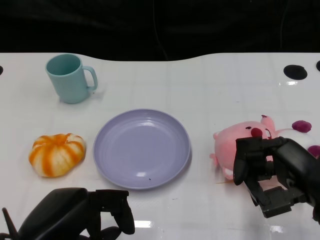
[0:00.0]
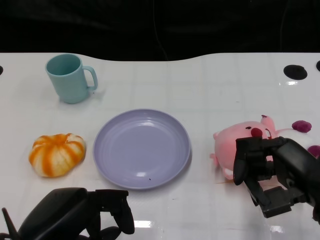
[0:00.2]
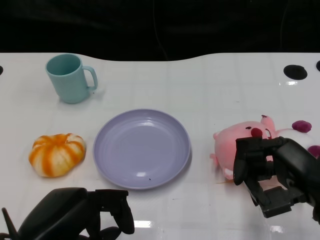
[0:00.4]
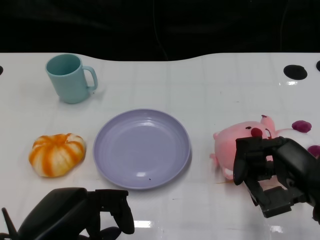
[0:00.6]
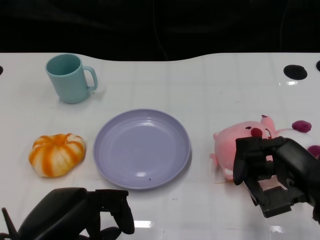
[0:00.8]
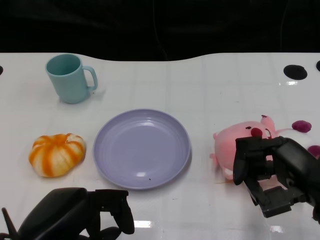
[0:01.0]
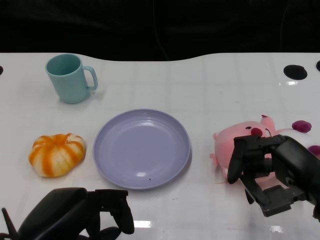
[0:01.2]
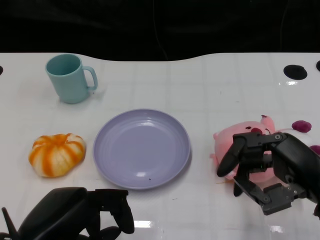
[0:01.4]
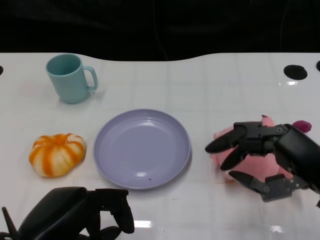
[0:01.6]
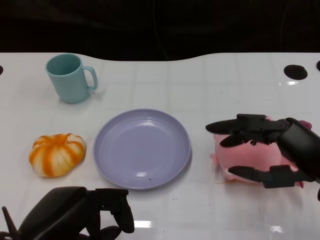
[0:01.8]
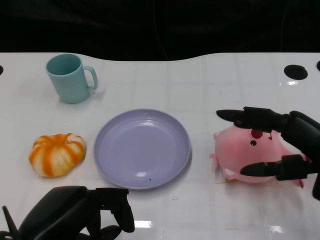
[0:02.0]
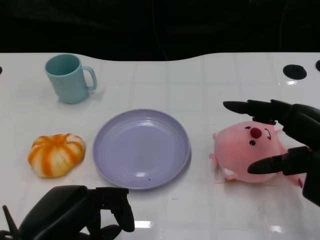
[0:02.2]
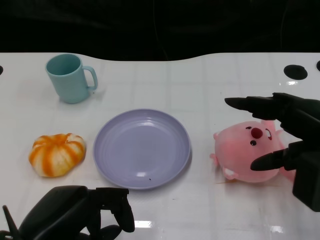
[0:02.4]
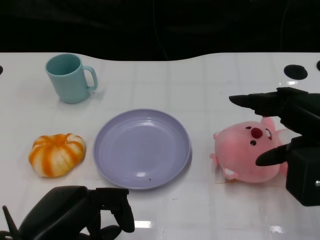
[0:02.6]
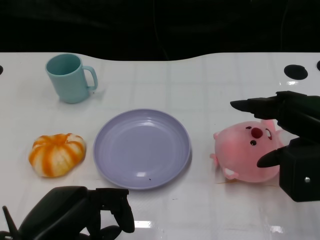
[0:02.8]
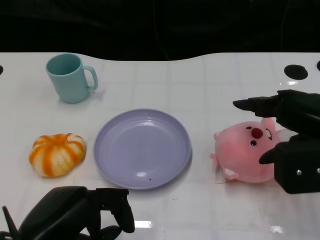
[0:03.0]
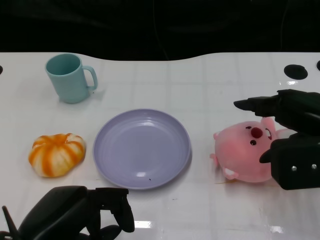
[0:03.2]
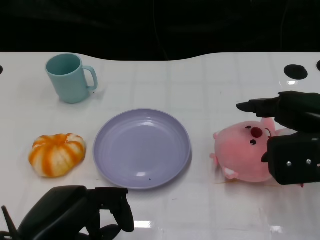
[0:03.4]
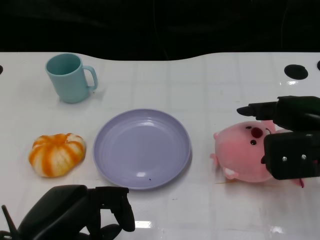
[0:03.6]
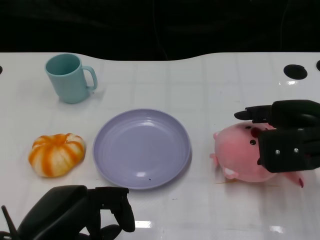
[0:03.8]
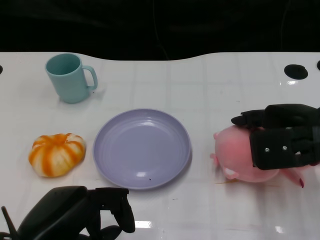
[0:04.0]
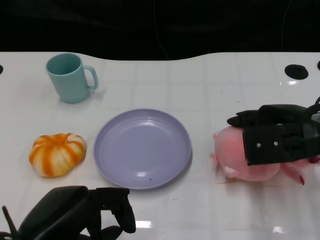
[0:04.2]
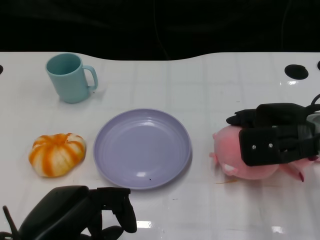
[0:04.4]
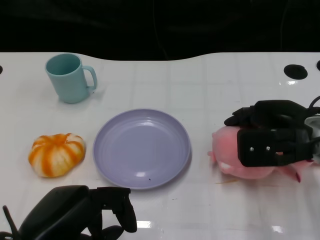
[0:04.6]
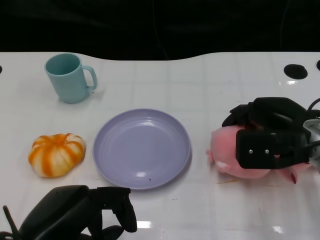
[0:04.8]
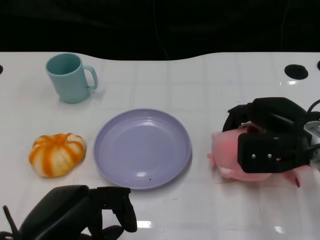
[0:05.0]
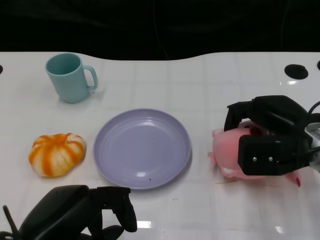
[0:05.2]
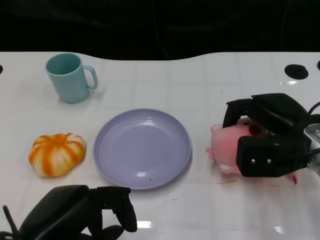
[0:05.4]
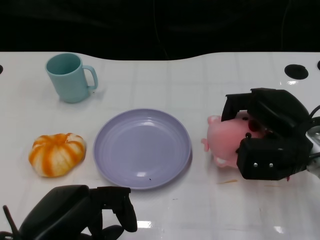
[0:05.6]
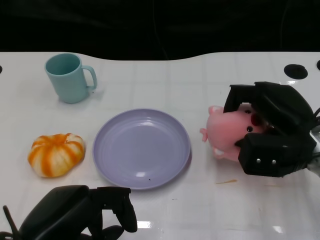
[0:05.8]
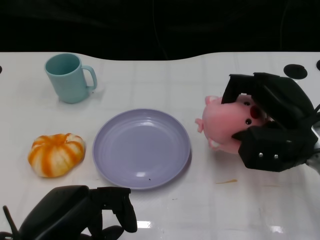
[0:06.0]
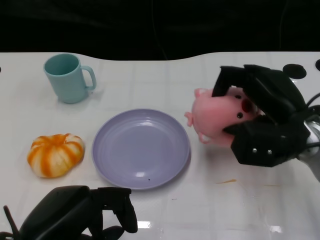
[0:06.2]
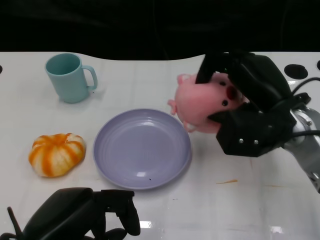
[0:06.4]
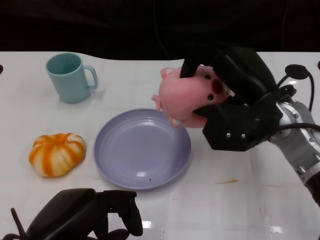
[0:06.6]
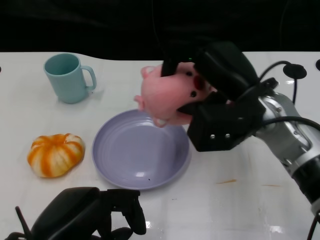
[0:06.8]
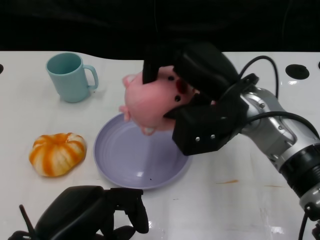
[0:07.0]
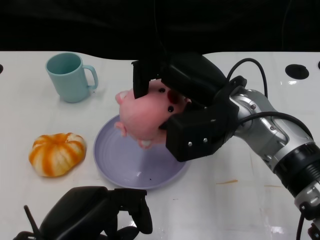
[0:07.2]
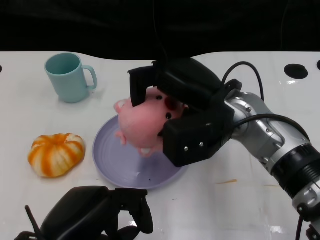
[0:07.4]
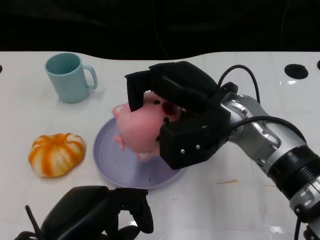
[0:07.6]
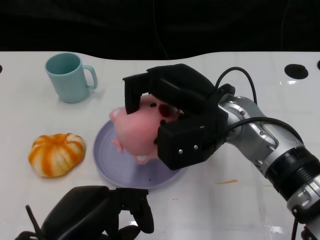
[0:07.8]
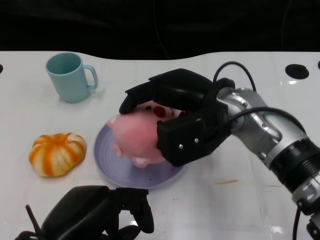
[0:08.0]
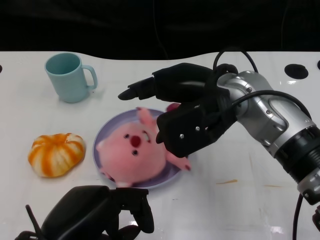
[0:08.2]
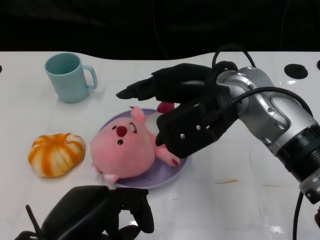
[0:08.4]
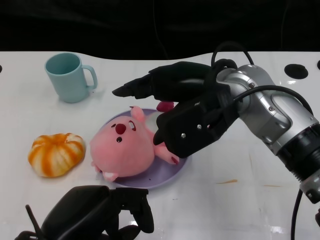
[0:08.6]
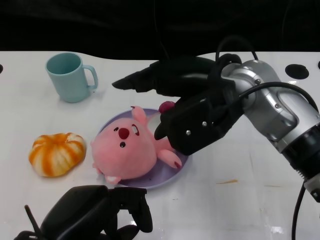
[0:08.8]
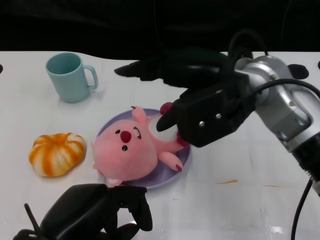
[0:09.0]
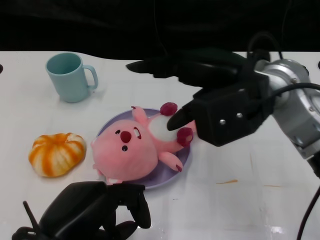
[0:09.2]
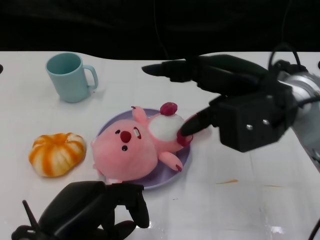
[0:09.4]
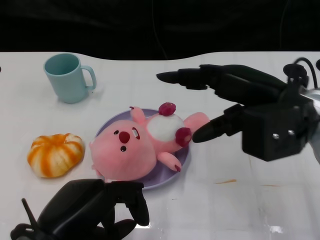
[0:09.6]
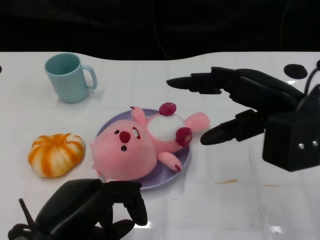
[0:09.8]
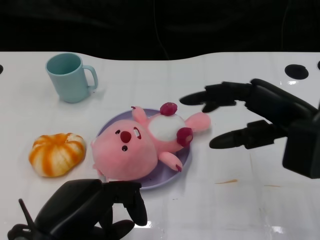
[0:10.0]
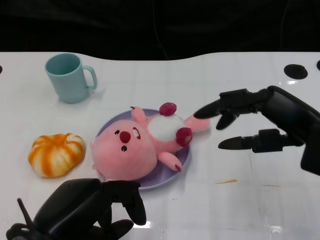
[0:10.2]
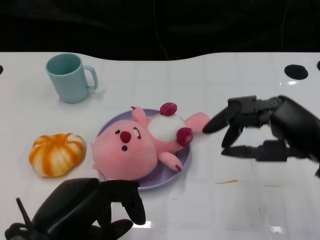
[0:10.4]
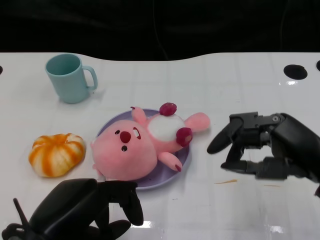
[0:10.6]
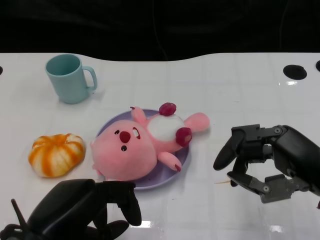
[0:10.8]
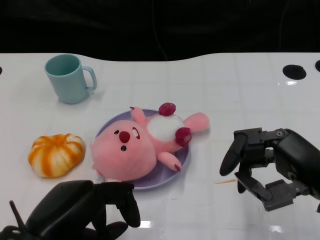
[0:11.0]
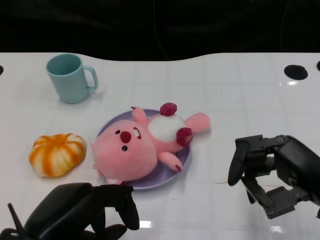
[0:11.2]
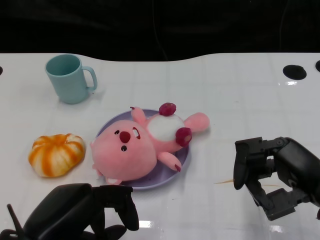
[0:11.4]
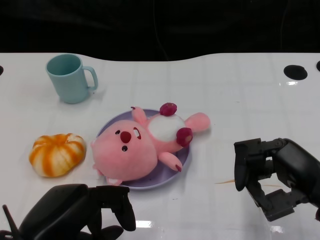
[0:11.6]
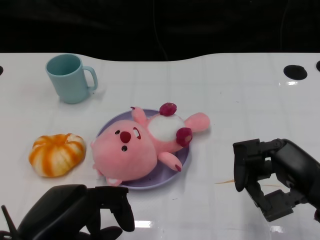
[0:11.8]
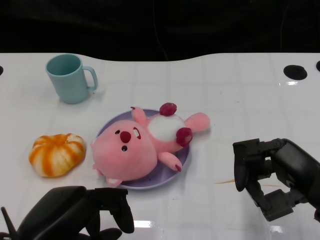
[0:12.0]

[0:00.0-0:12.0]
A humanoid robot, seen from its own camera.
Task of the whole recording: Pick up the doll on the other side of the plate and place it into the plate.
Step, 0:01.2 to 0:06.6: Grasp the pink doll with the right gripper.
Step, 0:06.8 to 0:09.2: Place the pink doll into the plate with the right gripper.
0:01.6 to 0:03.0: The right hand shifts by some 5 cm.
0:03.0 to 0:04.4: The right hand shifts approximately 5 cm forward.
0:06.0 to 0:07.6: The right hand is displaced to the left by roughly 10 cm.
0:07.6 to 0:09.0: The right hand is displaced upward by some 5 cm.
0:09.0 to 0:10.4: The right hand heads to the right, backward and downward, covering approximately 15 cm.
0:10.4 to 0:12.0: The right hand ends up about 5 cm from where it was.

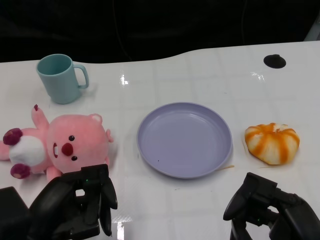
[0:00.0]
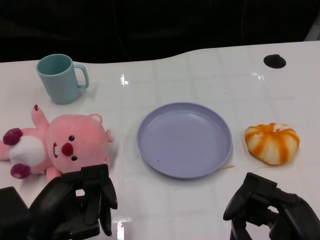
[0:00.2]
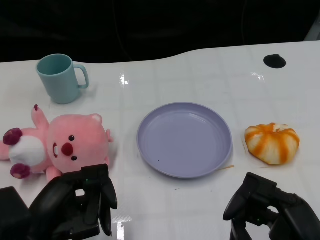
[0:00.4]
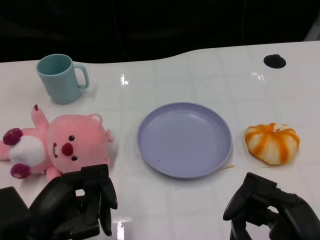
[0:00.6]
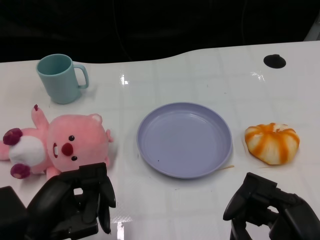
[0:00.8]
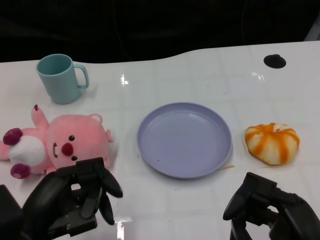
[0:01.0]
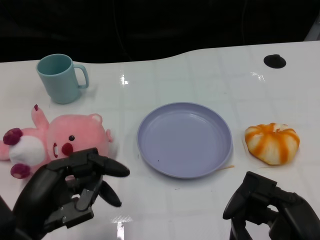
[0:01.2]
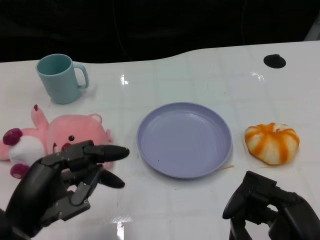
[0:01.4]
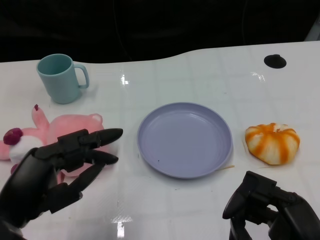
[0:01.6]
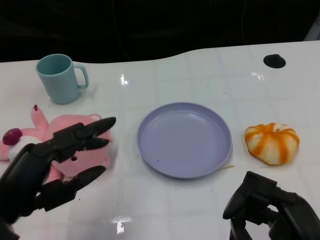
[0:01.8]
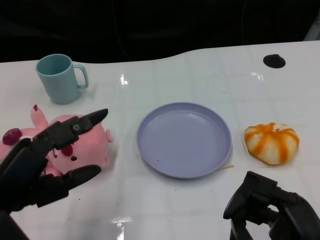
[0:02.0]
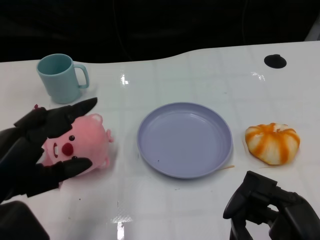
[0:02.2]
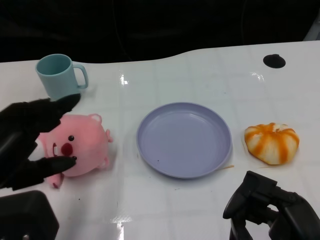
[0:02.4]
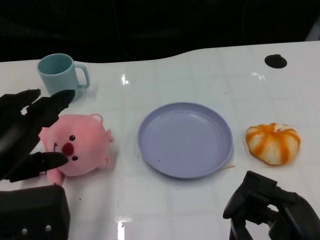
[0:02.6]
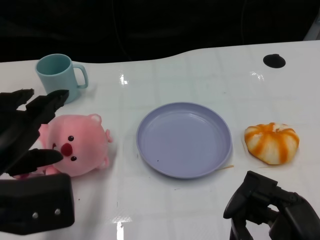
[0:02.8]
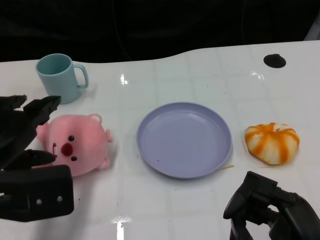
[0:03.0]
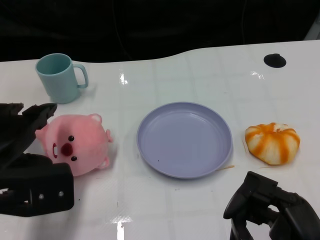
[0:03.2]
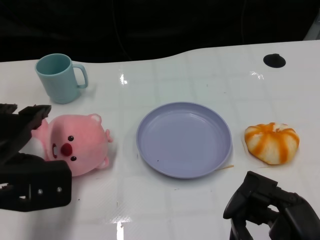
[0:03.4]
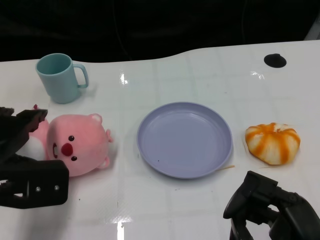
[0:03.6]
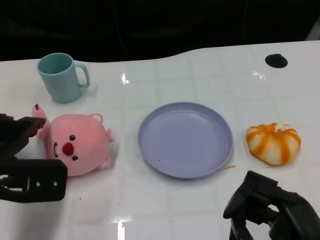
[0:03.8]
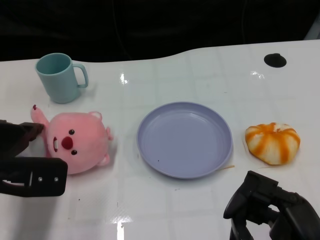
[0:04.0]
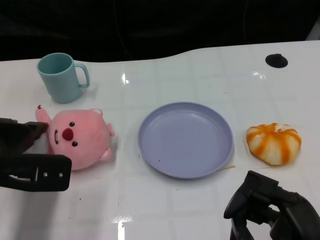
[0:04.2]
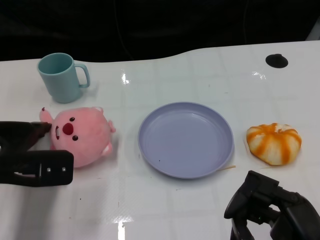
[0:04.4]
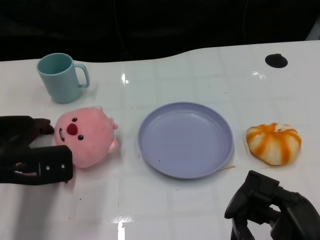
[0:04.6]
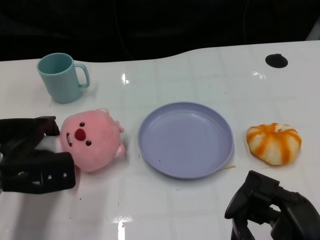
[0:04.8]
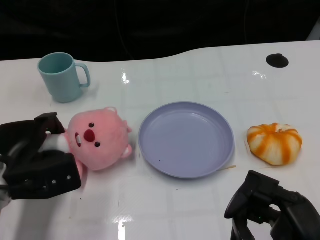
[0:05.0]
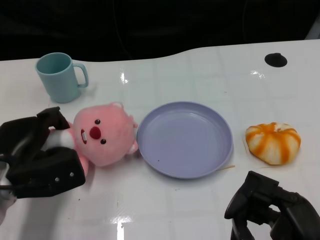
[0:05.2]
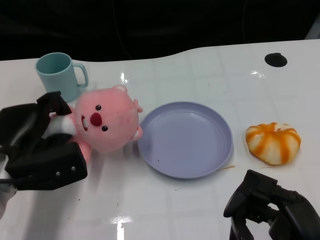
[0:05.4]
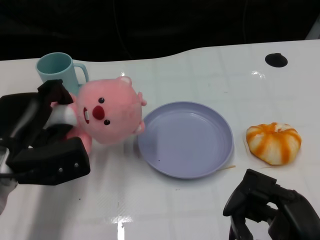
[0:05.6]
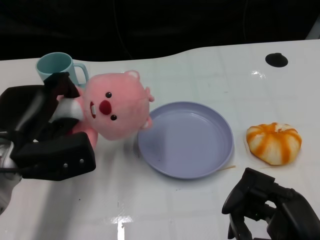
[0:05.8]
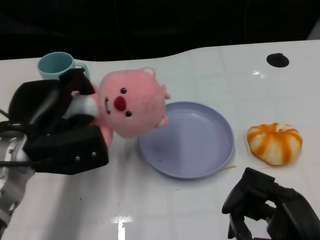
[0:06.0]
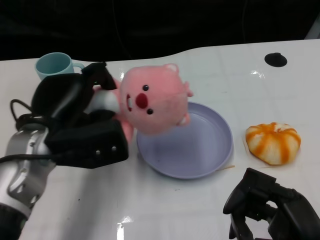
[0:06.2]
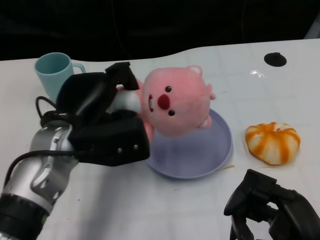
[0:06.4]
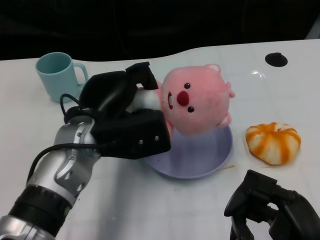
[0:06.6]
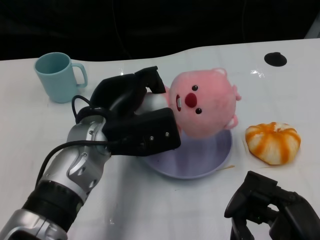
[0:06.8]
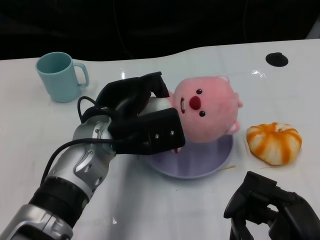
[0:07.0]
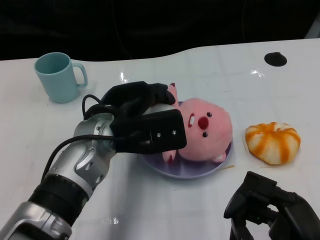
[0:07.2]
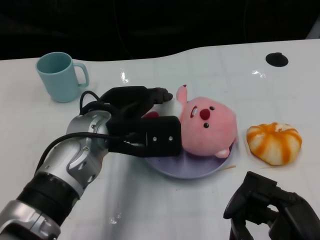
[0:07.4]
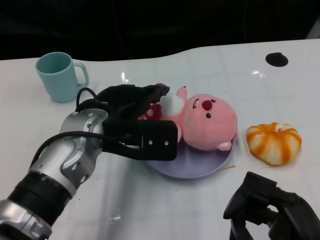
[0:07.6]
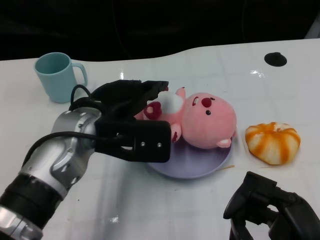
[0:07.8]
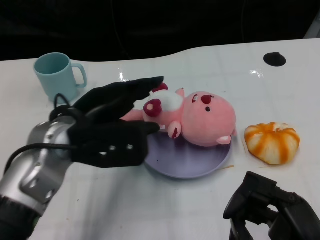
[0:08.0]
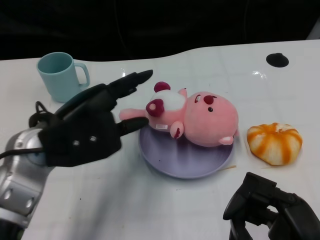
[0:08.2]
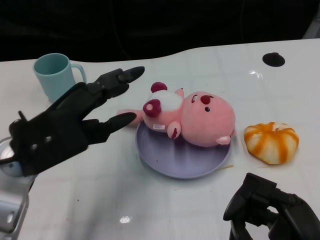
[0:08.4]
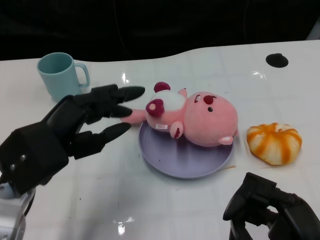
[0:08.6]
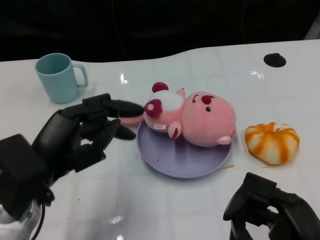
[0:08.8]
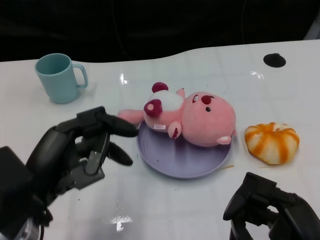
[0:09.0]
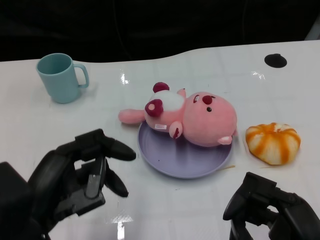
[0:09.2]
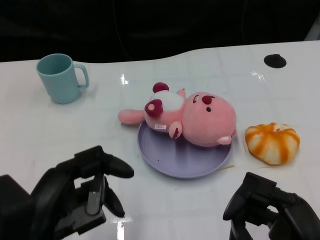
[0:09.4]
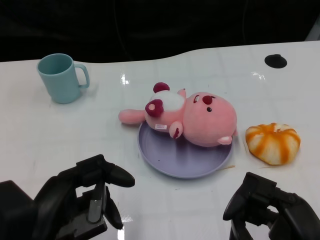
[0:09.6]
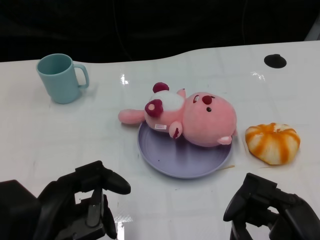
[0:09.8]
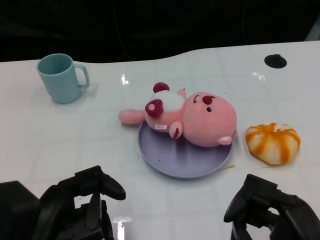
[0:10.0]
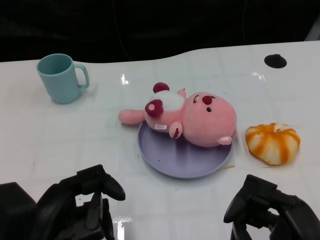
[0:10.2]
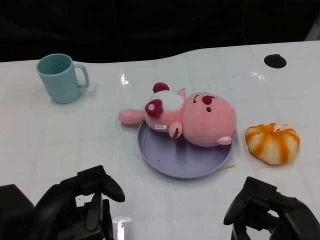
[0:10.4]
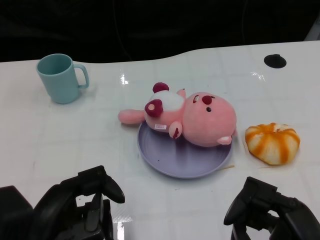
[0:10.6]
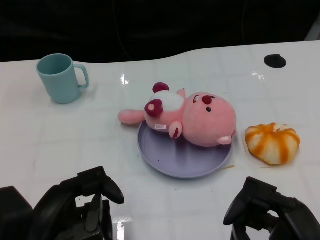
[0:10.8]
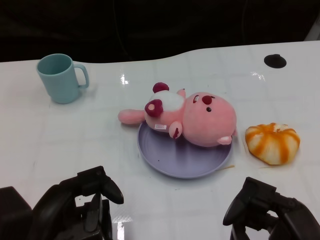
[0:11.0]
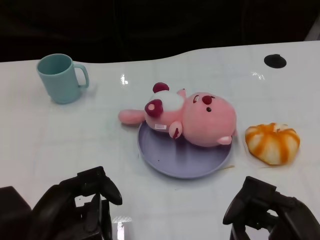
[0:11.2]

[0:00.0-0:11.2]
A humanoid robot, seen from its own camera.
Task of the whole recording: Pick up the doll on one side of the plate and place it into the plate.
Step, 0:00.8 to 0:05.2: Grasp the pink doll with the left gripper.
Step, 0:05.4 to 0:07.8: Place the pink doll into the plate with the left gripper.
0:01.6 to 0:03.2: The left hand is displaced forward by about 5 cm.
0:03.2 to 0:04.8: The left hand travels downward and forward by about 10 cm.
0:04.8 to 0:06.4: The left hand shifts roughly 10 cm to the right and upward.
0:08.0 to 0:09.6: The left hand goes roughly 15 cm backward.
0:09.6 to 0:11.2: The hands move only a little.
